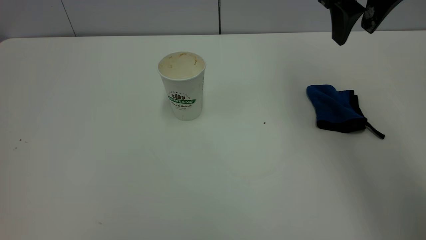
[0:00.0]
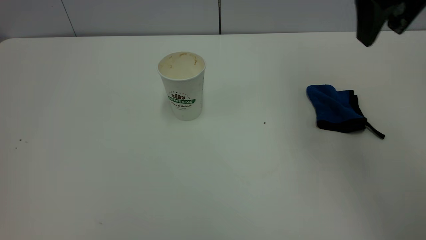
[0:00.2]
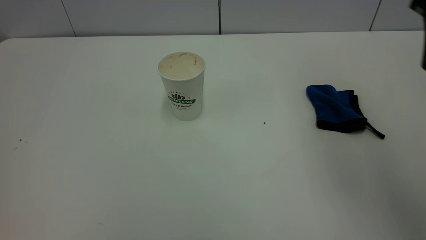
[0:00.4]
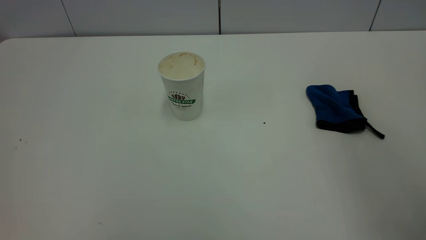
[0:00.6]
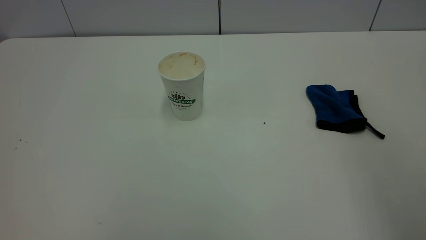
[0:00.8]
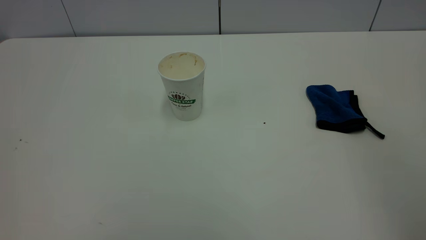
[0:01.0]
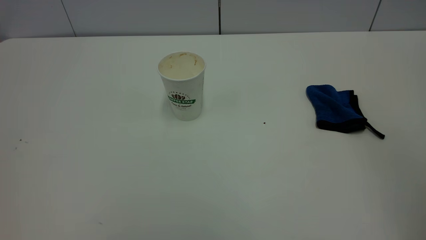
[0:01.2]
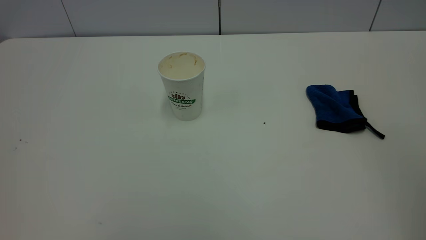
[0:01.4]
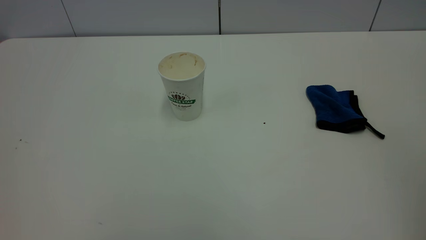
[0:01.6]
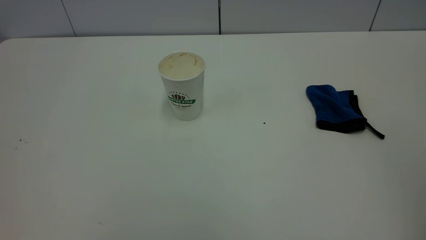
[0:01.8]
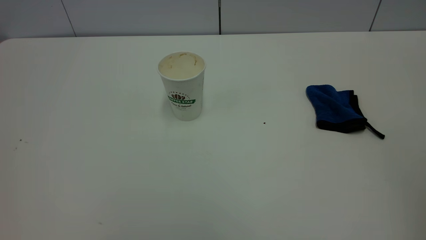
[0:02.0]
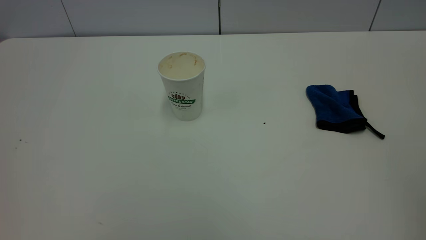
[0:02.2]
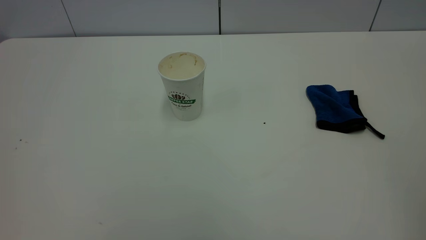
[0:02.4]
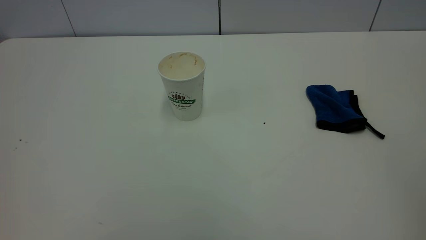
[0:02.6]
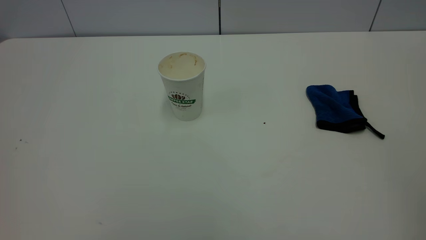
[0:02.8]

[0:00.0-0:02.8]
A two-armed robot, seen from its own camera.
Task of the whole recording: the left gripper pick up the fallen cup and place it upright, the right gripper grasp the blue rag and wipe the tea stain on the table, the right gripper put the blue rag back in its original position.
0:00.0 to 0:01.4: The right gripper moves backward, roughly 35 cm.
